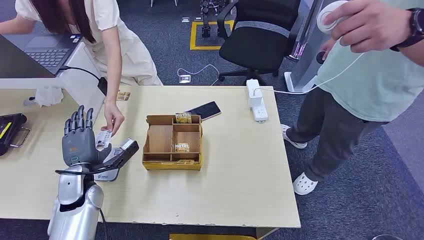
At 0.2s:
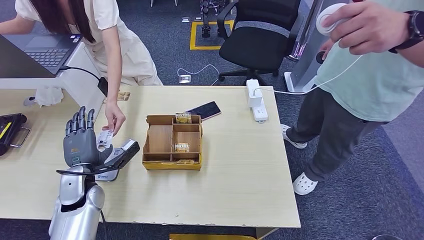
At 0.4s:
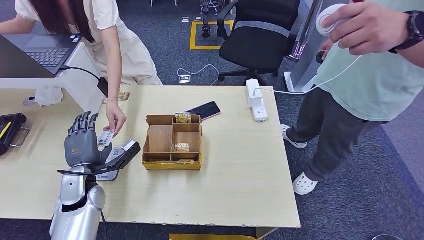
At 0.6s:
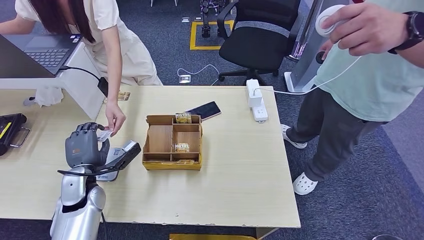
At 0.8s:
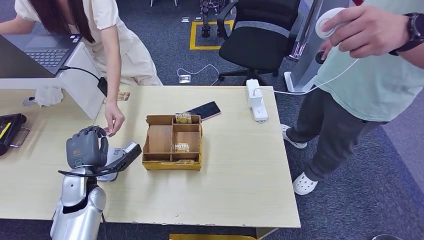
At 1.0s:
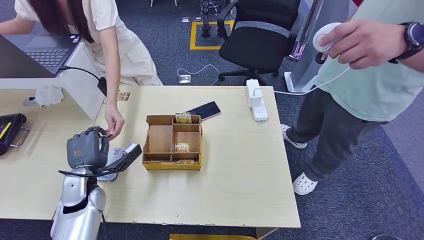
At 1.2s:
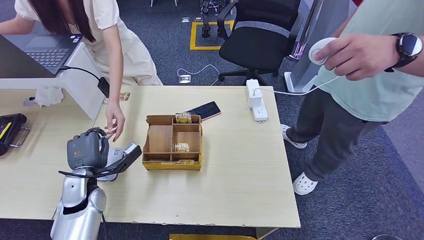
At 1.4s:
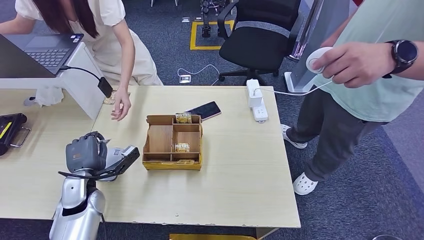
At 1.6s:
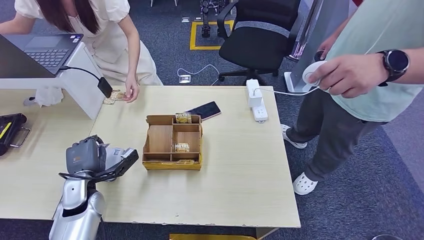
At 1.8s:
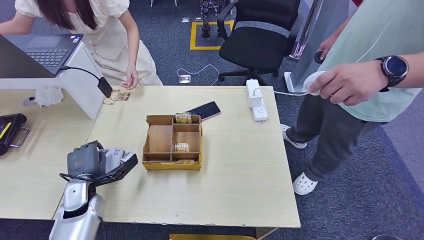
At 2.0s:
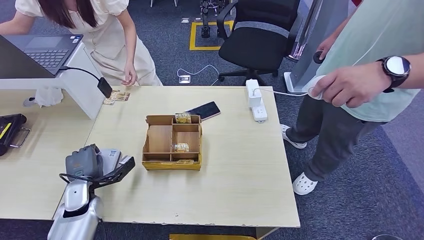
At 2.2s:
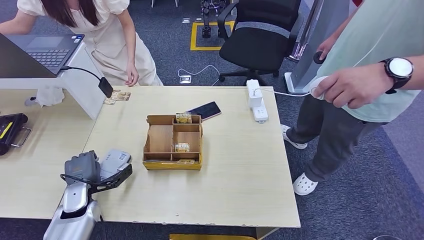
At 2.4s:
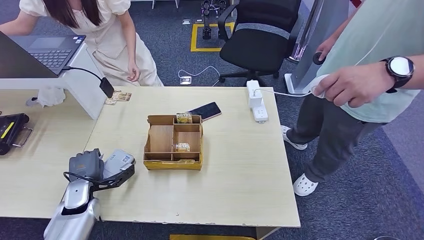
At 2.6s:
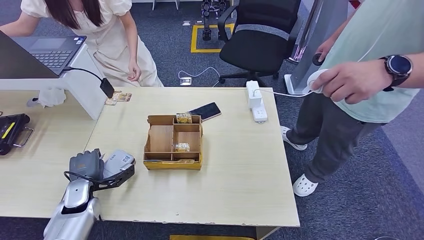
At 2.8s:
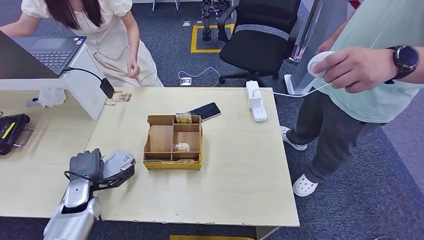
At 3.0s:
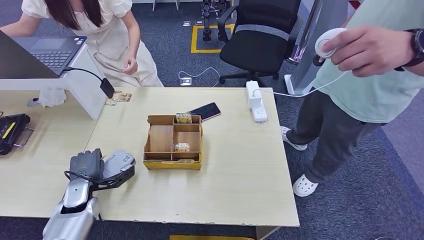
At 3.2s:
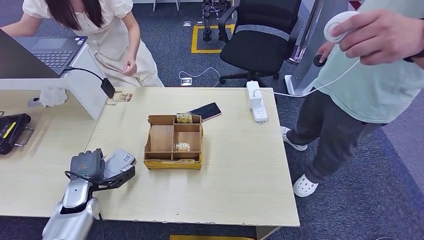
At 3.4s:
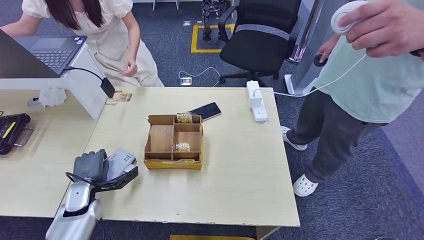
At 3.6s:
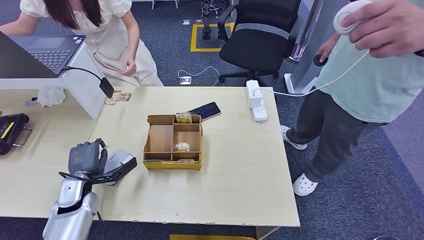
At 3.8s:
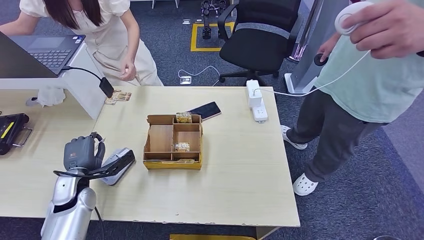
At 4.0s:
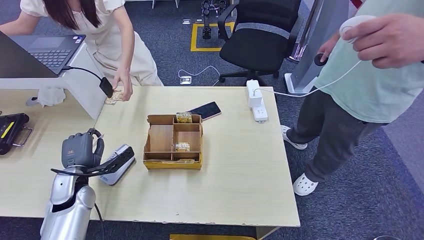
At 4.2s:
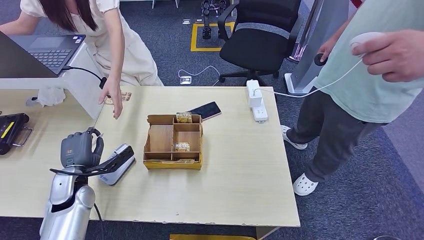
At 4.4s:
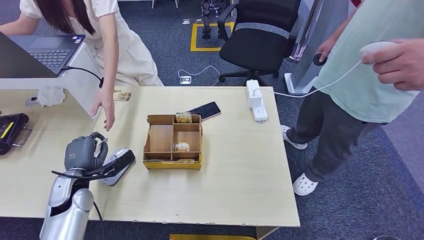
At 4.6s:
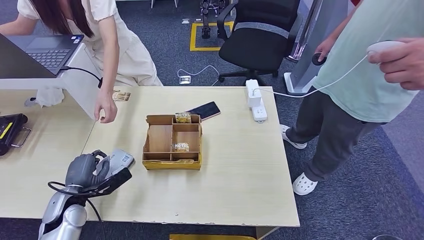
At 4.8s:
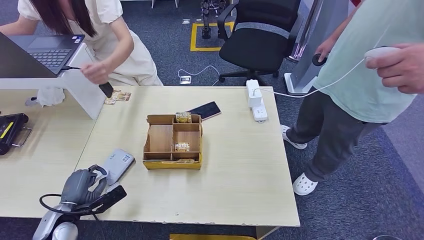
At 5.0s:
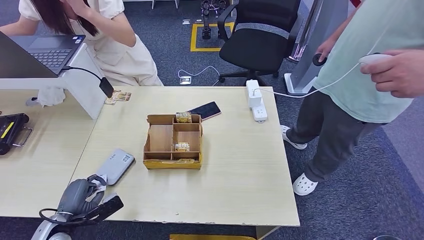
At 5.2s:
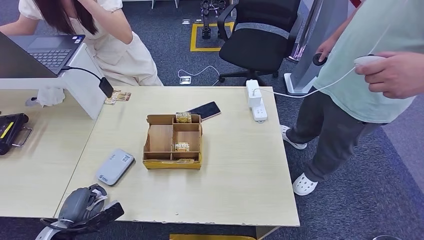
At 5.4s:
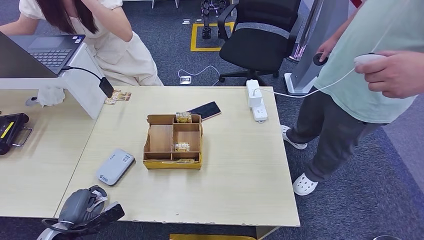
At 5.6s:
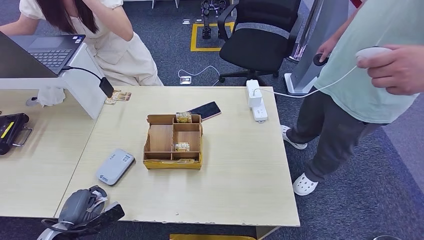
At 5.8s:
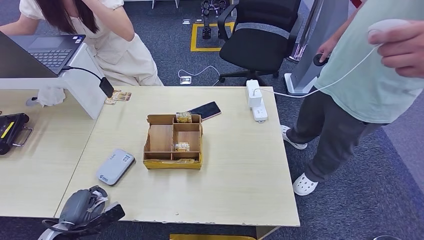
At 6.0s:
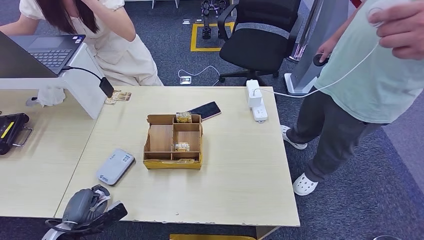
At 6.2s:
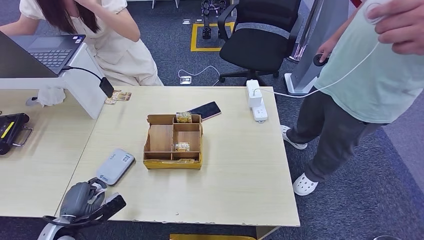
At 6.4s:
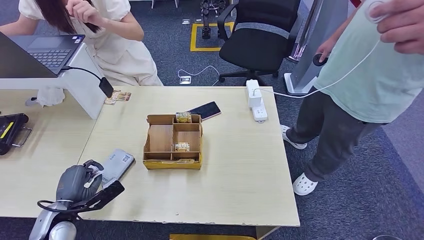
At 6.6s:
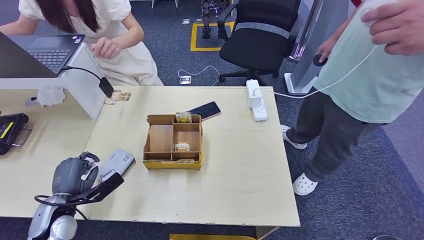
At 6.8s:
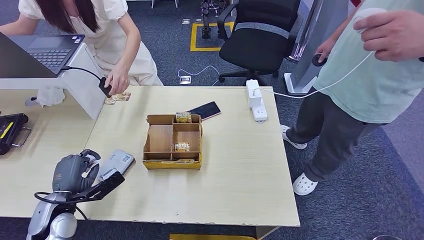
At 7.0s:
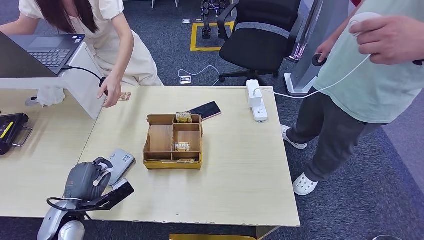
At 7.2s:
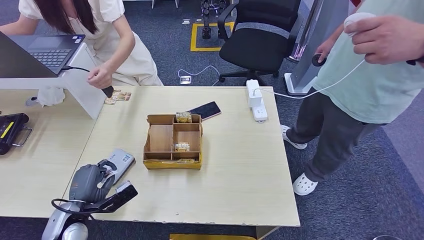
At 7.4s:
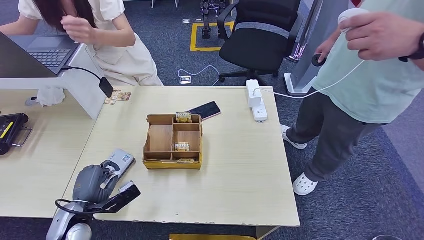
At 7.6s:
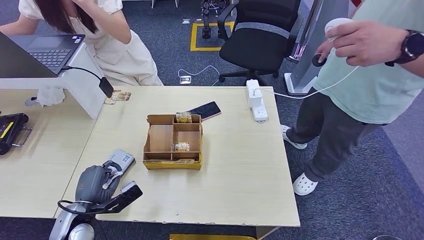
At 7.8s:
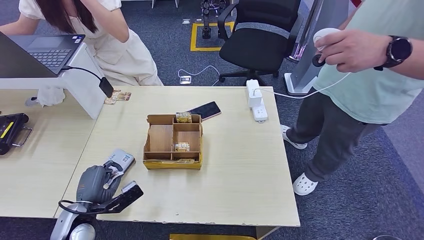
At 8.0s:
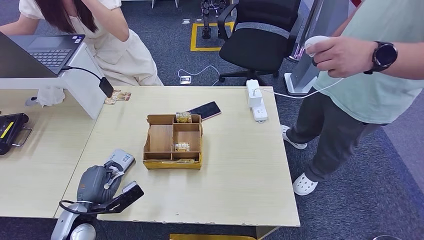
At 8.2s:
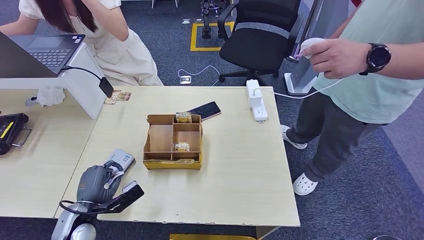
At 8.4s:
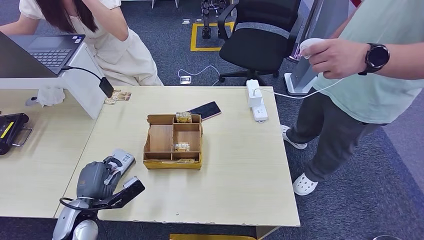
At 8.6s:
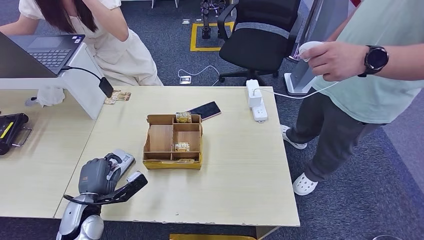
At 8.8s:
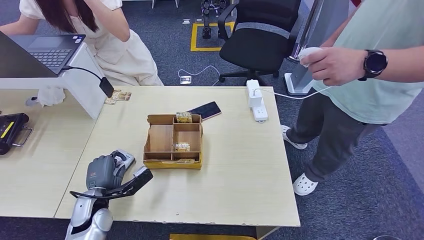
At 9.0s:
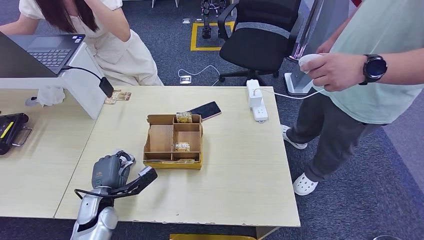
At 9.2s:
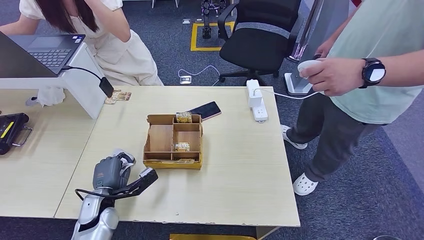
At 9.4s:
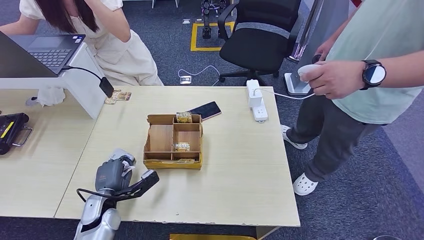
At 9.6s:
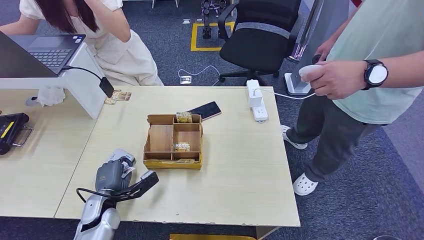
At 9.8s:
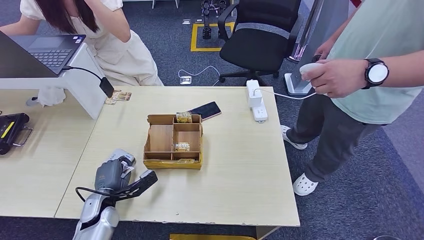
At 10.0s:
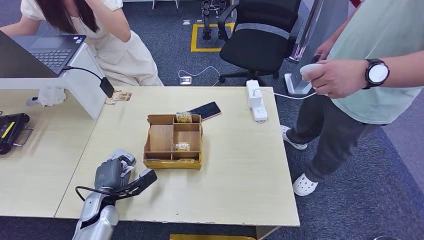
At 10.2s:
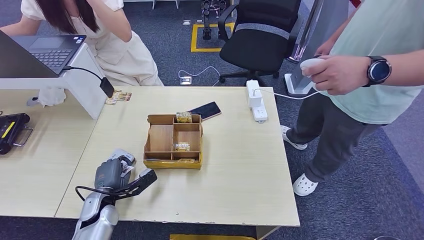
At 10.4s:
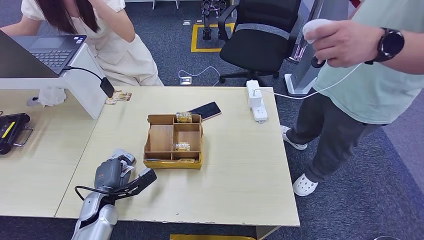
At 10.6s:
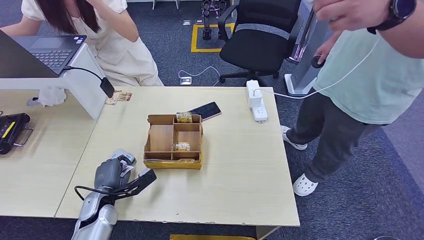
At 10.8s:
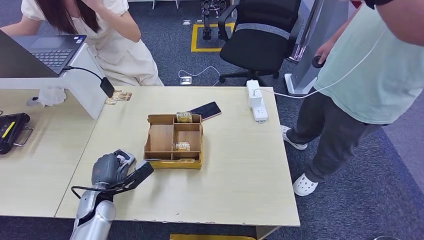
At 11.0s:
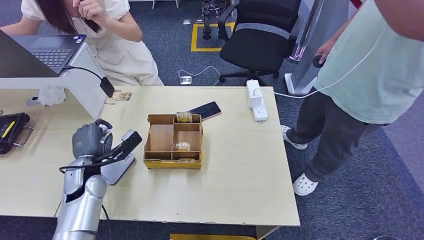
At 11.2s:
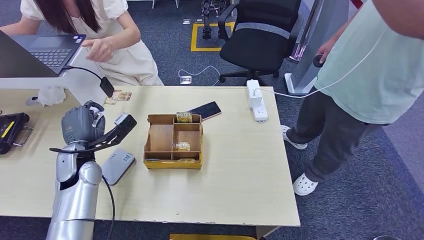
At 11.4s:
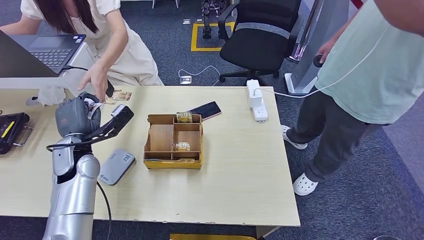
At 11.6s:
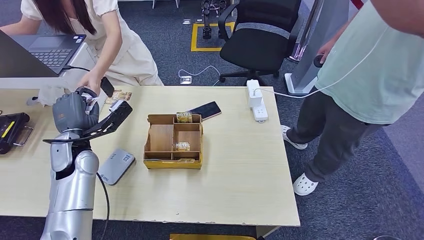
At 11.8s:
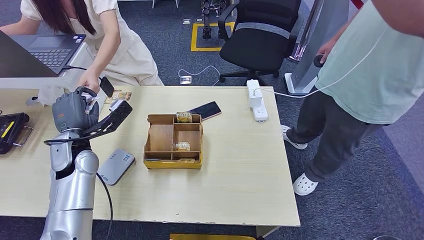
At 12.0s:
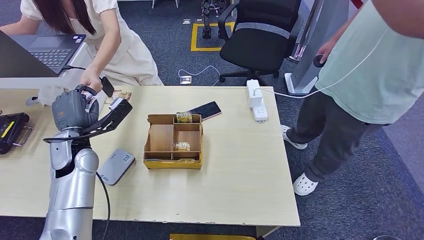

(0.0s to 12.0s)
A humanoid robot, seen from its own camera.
Step, 0.0s - 1.0s: Take the ID card from the person's hand.
Step, 1.2s - 3.2s: Place the ID card on the card reader.
3.0s - 4.4s: The left hand travels upward by approximately 5 cm.
4.4s - 6.0s: The left hand goes roughly 15 cm backward and downward.
6.0s - 7.6s: The left hand moves to the right, about 5 cm.
7.6s - 9.0s: The left hand changes place by approximately 5 cm.
9.0s - 10.4s: The hands make only small movements.
10.4s - 12.0s: The left hand is displaced upward and forward by roughly 20 cm.

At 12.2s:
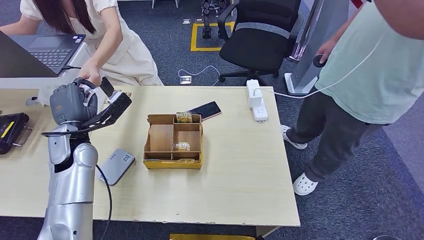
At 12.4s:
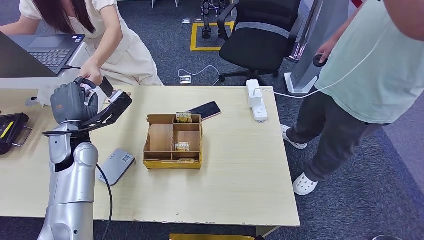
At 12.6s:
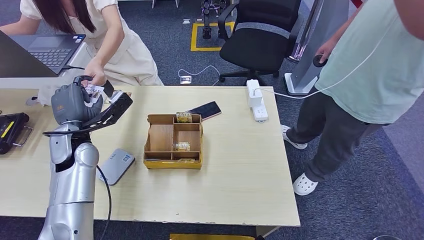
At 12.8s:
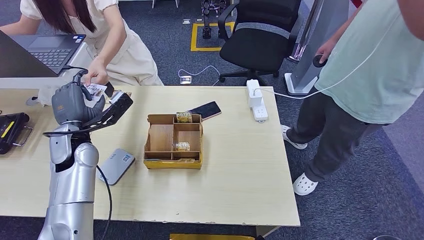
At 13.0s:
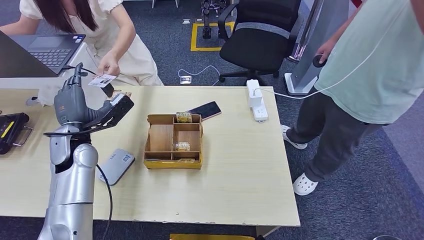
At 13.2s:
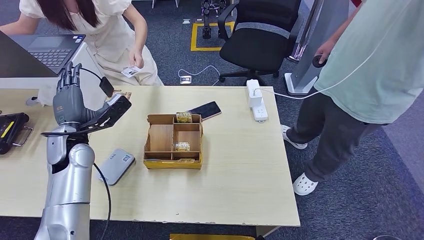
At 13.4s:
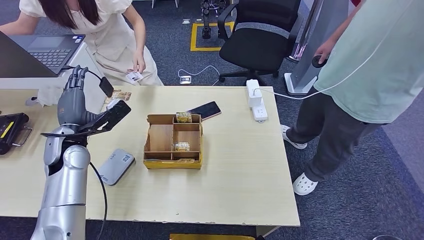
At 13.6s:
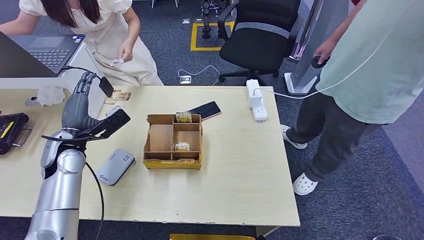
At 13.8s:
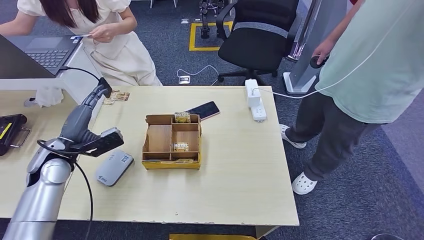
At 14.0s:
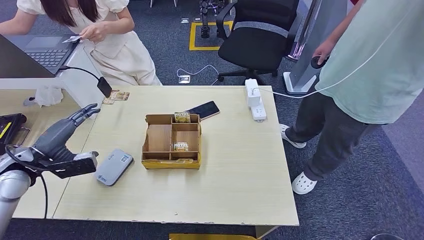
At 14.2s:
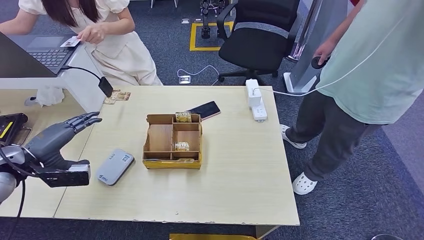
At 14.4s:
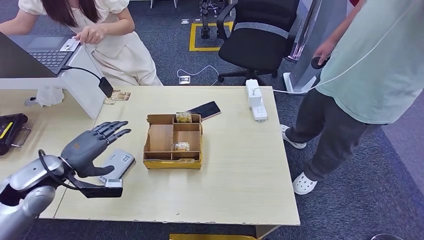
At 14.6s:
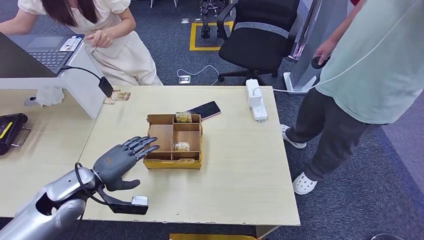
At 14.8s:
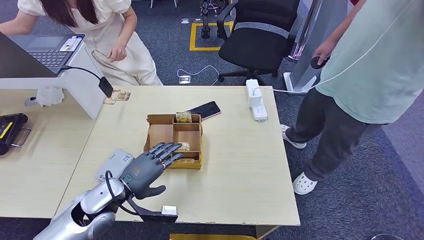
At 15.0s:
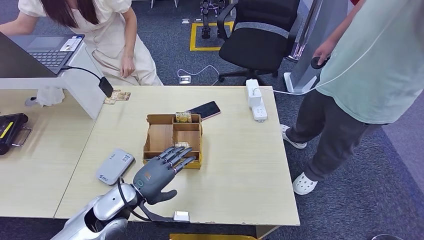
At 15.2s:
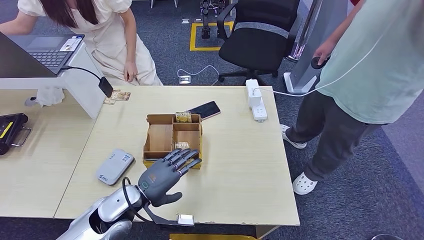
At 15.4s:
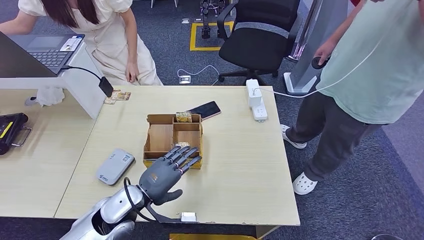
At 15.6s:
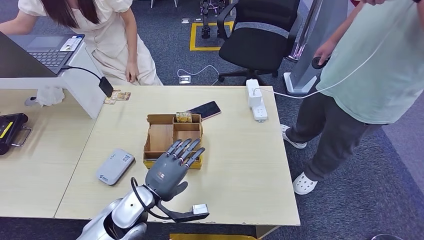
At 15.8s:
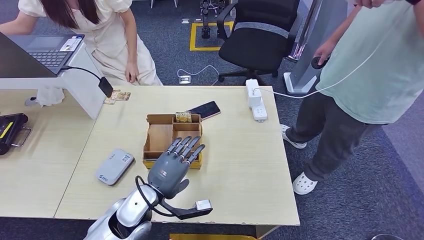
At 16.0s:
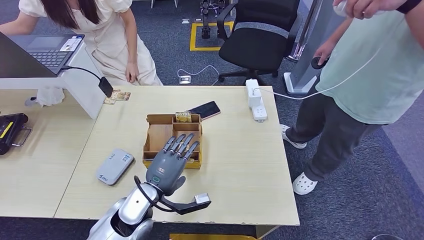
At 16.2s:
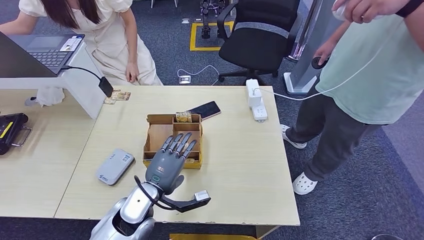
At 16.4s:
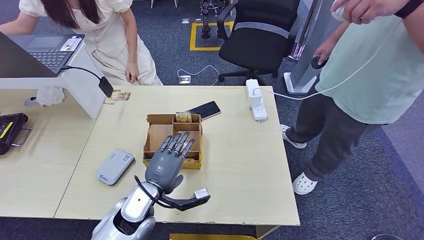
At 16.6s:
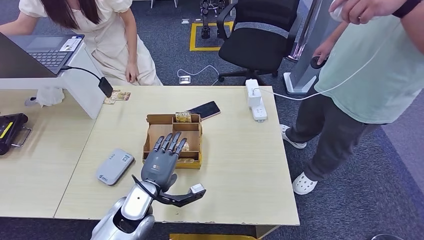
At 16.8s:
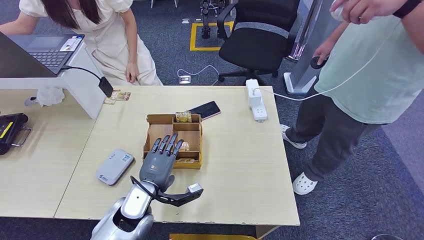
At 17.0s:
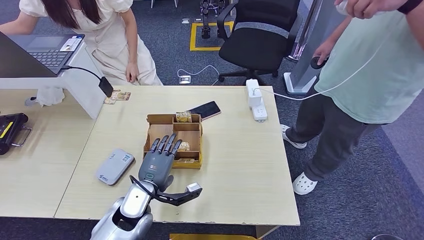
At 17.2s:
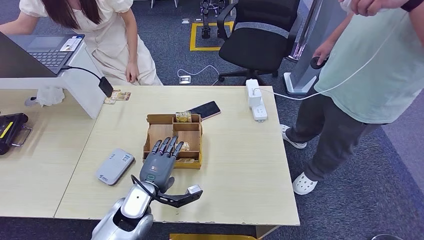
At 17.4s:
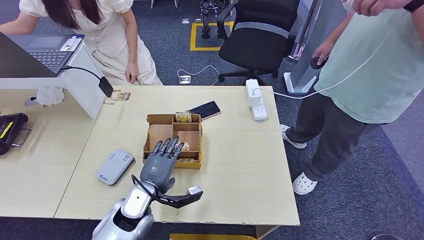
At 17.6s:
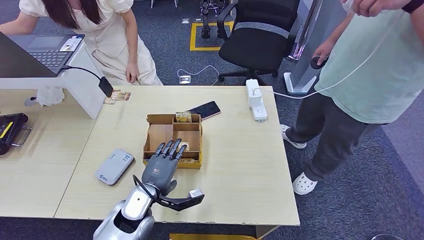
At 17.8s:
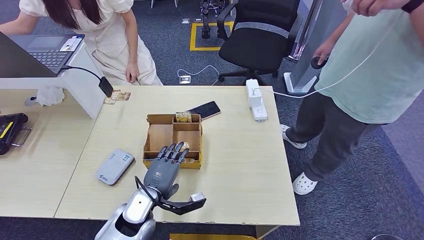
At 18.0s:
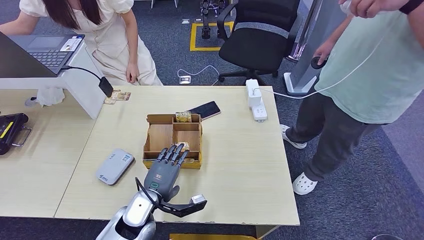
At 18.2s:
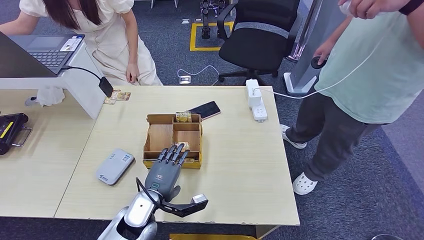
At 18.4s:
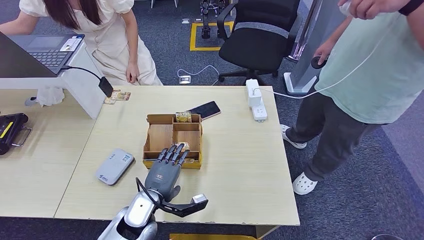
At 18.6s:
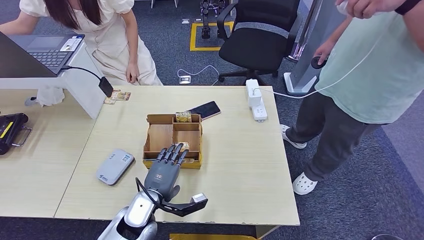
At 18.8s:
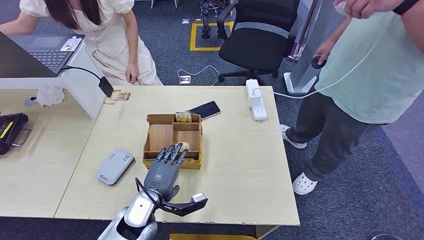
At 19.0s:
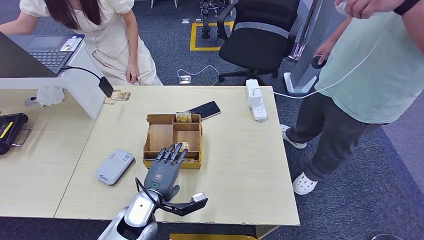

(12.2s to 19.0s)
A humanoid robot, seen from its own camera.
13.6s - 15.0s: The left hand moves to the right, backward and downward, some 20 cm.
15.0s - 16.2s: The left hand is displaced to the right by approximately 5 cm.
16.2s - 19.0s: The hands make only small movements.
